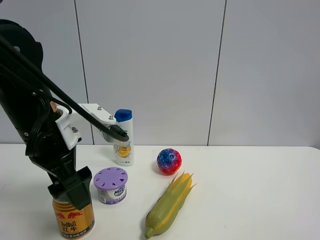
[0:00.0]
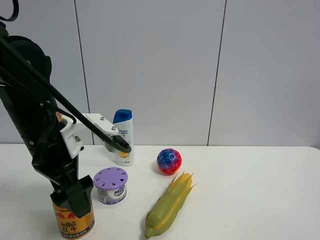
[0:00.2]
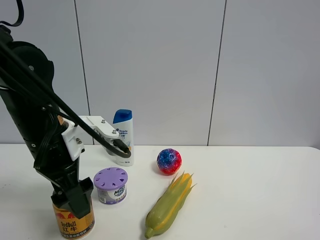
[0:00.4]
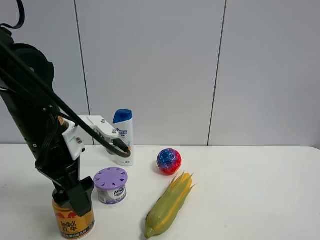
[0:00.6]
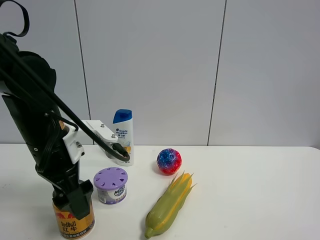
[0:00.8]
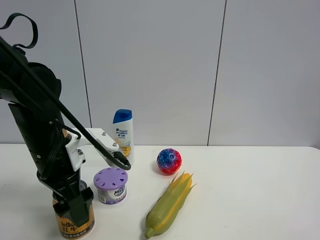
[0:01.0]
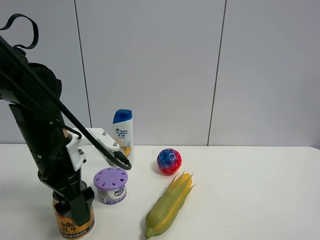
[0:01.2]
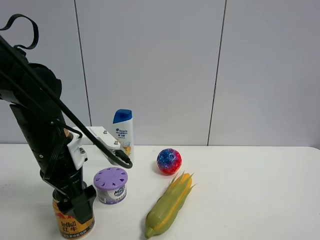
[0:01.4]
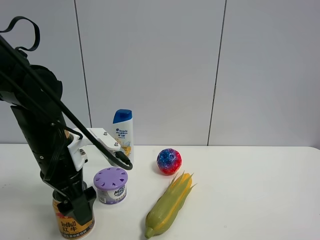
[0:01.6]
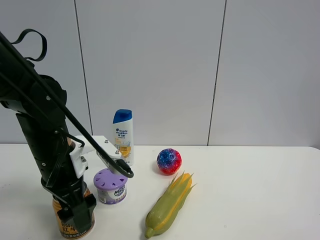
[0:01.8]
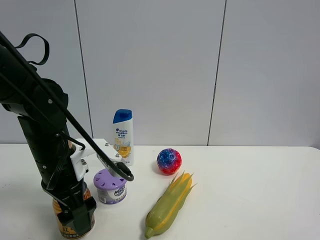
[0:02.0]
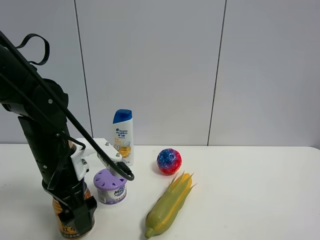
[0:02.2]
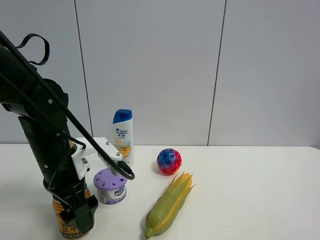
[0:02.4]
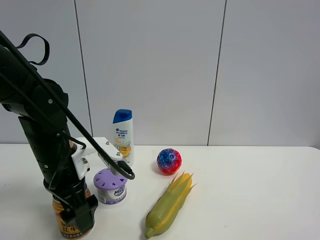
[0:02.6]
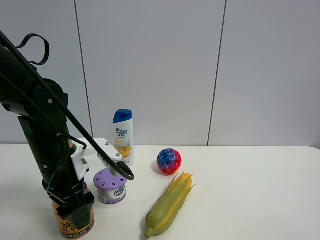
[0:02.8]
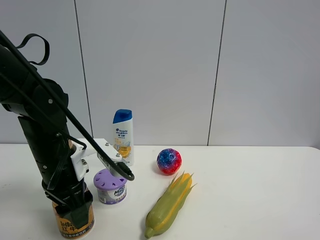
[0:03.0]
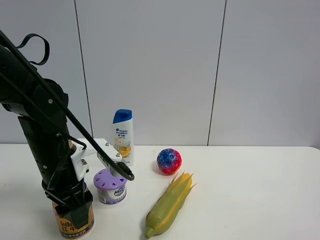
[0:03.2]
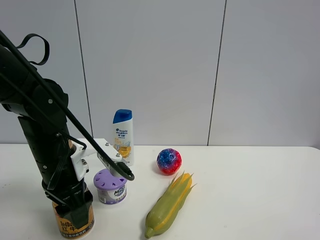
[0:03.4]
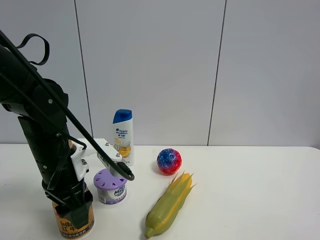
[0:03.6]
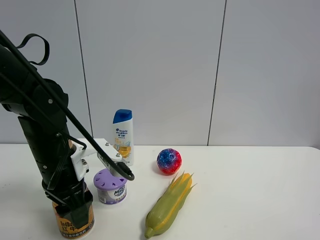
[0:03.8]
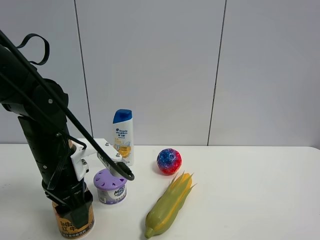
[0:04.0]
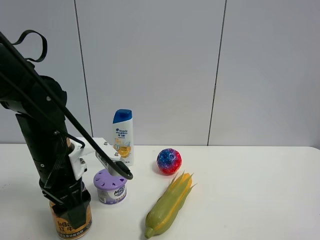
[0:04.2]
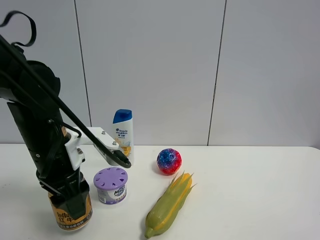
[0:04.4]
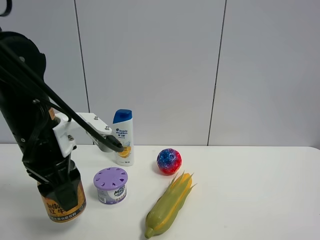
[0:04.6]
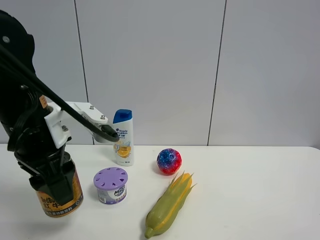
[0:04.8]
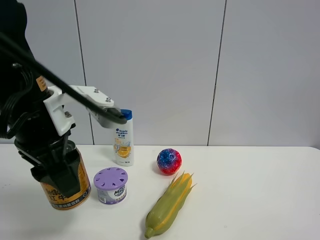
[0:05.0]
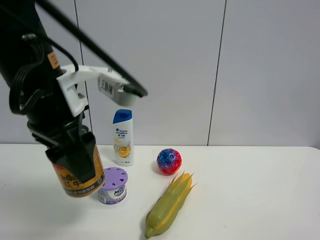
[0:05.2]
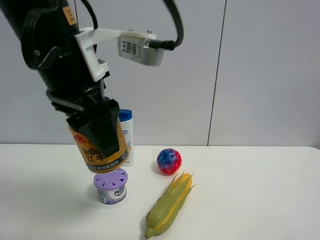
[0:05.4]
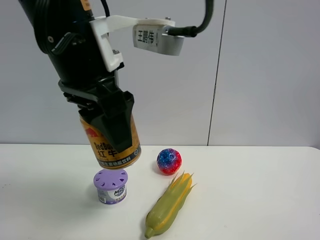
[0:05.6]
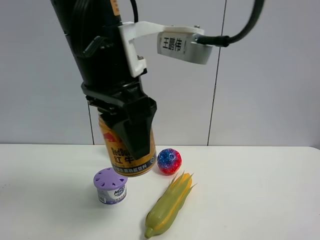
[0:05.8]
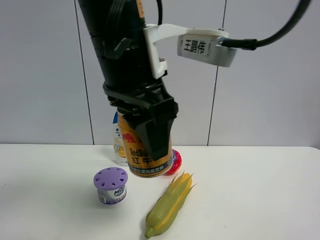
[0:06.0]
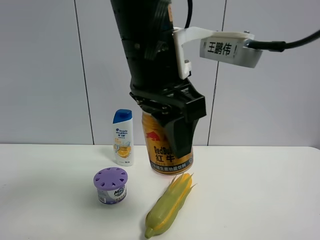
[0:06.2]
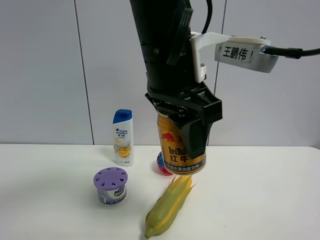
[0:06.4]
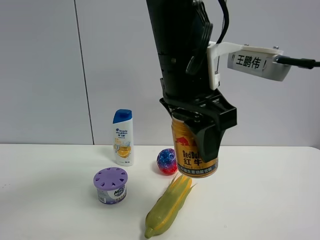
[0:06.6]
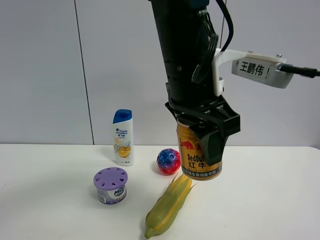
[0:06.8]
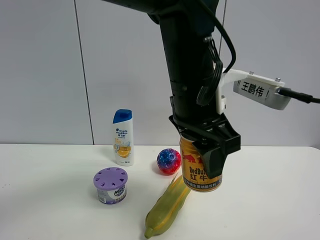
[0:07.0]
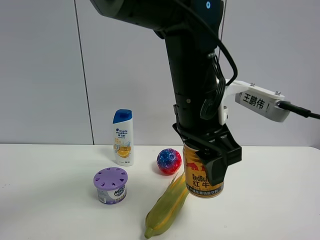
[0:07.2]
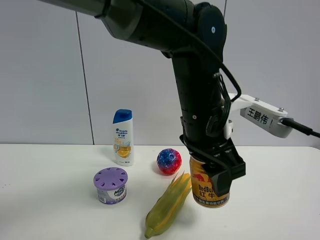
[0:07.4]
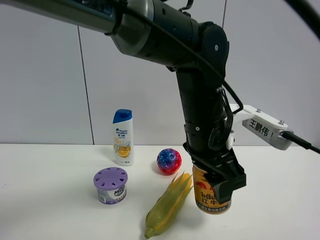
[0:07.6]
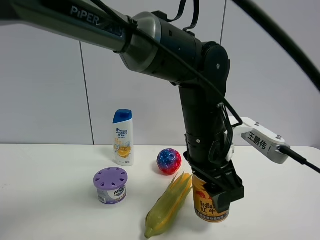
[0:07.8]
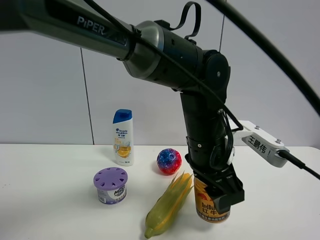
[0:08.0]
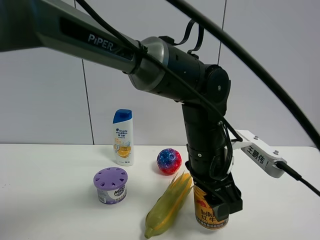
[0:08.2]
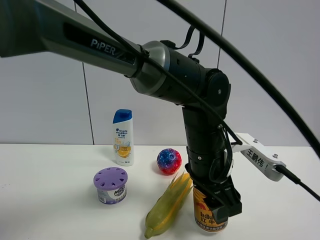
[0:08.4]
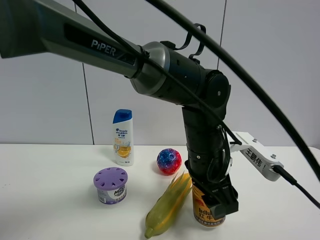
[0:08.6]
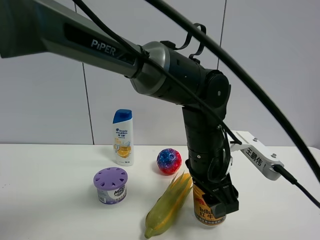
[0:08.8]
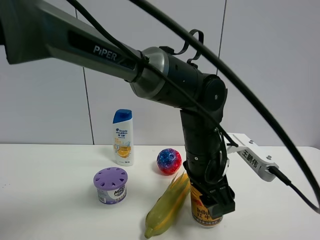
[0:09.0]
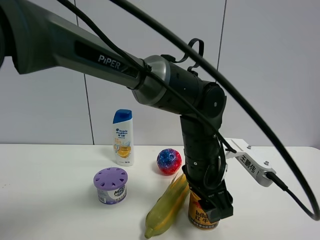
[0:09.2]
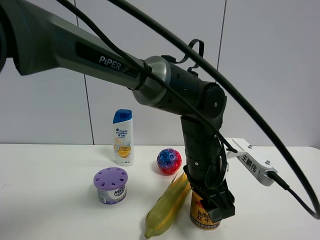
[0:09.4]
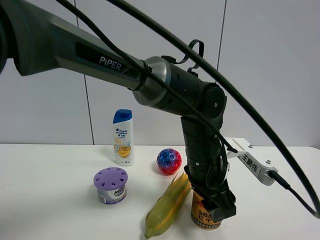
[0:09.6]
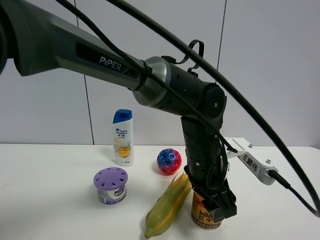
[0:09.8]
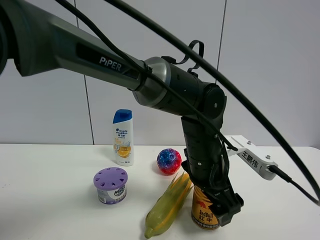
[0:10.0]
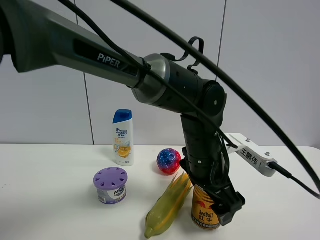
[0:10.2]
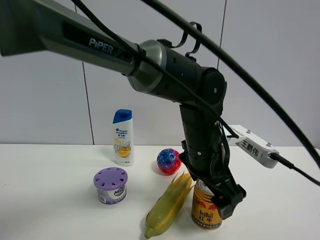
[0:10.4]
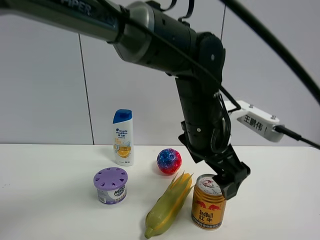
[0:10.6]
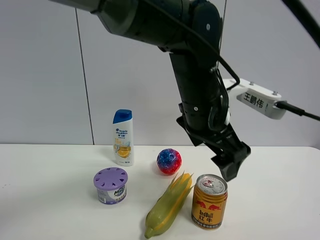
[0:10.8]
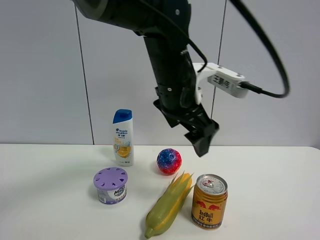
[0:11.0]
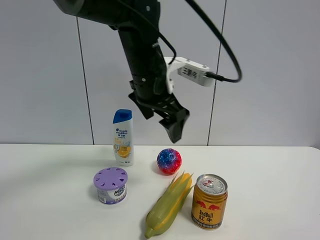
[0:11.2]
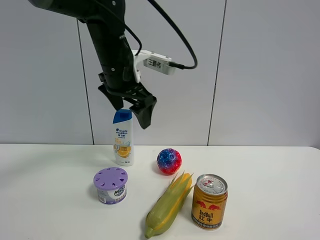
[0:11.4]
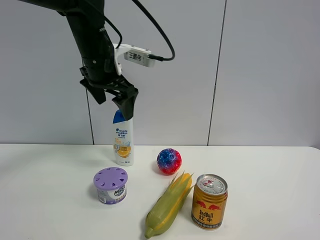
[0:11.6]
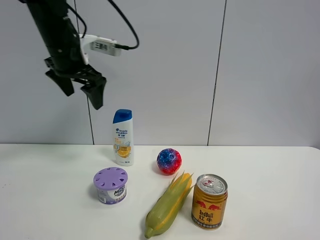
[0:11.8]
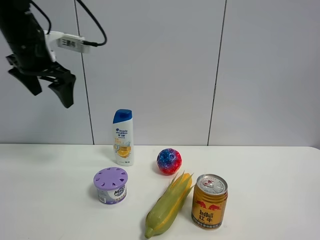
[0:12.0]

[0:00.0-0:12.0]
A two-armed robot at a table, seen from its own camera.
Task of the whole recording: the gripper move the object.
Step, 0.0 to 2.8 s: Grasp the red bull with the left gripper.
Step, 3.0 to 10.2 s: Place the red bull on the table with the left gripper.
0.0 to 1.6 s: The left gripper ends up roughly 5 cm from where it was.
1.6 to 3.0 s: The left gripper closes its fingers.
3.0 to 4.4 s: The grippers stay close to where they were, moving slightly.
4.4 to 6.0 s: The left gripper goes roughly 20 cm upward and to the right.
6.0 to 7.6 s: The left gripper is displaced downward, to the right and forward by about 15 cm.
7.6 to 9.0 s: The left gripper shifts approximately 5 cm downward.
9.0 to 10.4 s: The left gripper opens.
10.4 to 12.0 s: The left gripper shifts approximately 35 cm to the left and upward.

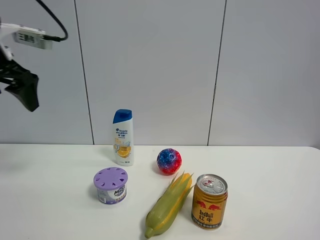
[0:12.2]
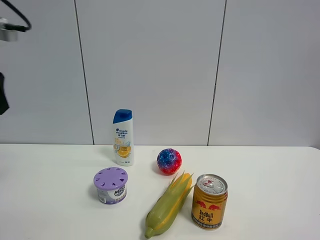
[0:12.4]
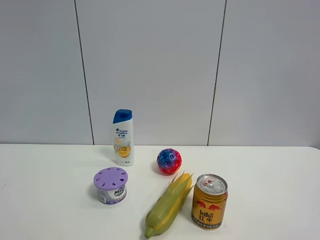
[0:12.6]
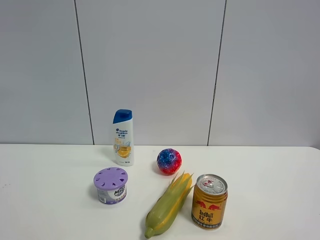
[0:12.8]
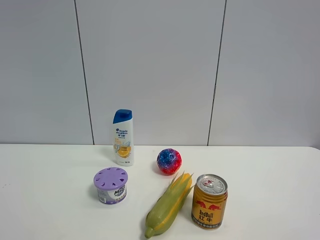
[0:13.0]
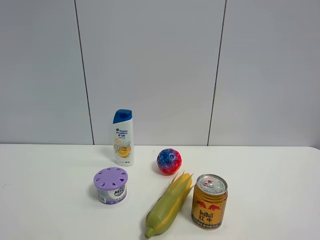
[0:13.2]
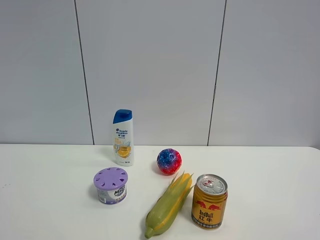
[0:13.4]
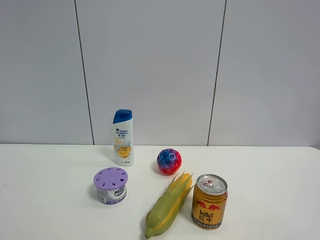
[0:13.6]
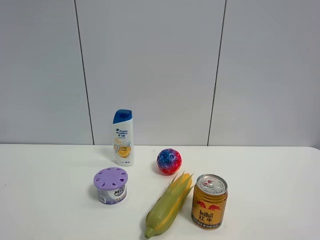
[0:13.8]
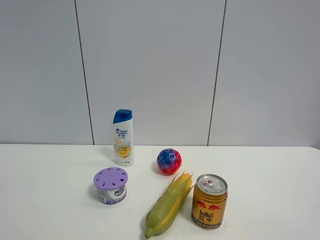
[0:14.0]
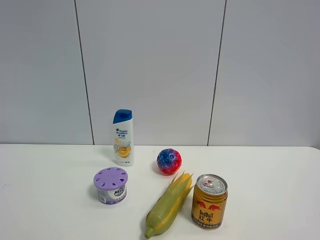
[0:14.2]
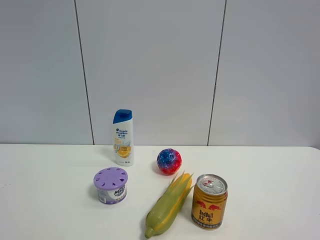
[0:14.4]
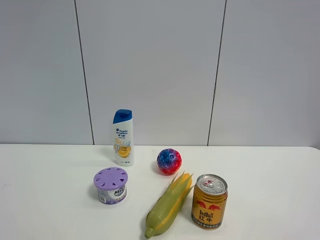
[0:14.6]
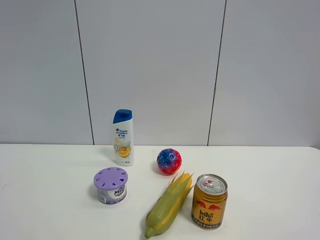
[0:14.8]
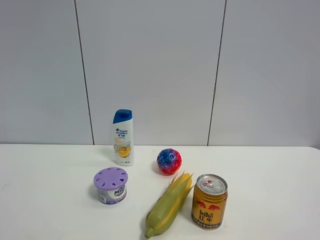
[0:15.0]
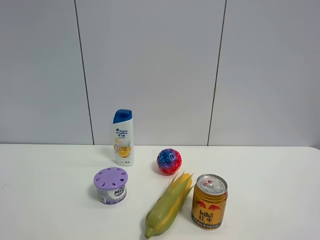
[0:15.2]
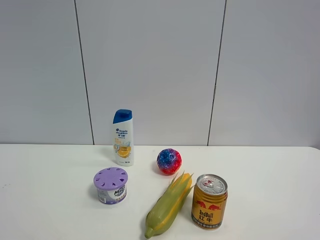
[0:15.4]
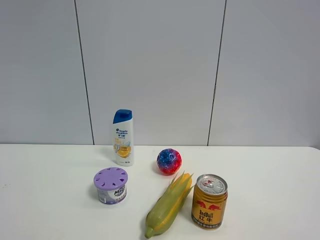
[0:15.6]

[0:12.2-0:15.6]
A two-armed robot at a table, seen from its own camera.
Task of the whole recording: the gripper move the object.
12.2 to 13.8 s: The left gripper goes about 35 cm backward.

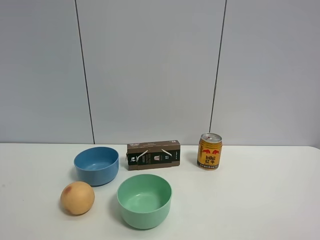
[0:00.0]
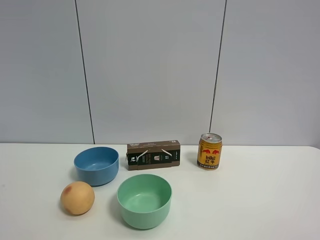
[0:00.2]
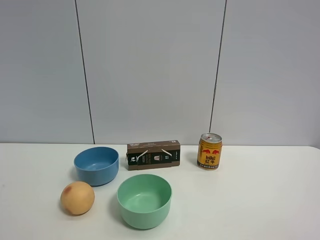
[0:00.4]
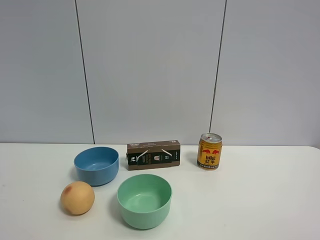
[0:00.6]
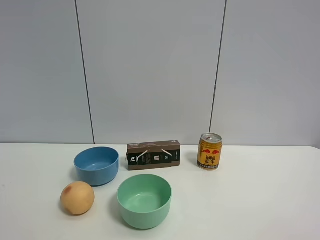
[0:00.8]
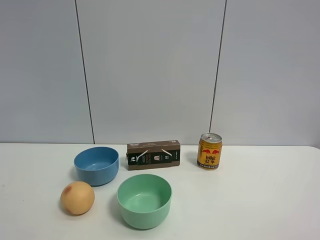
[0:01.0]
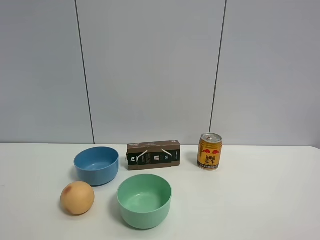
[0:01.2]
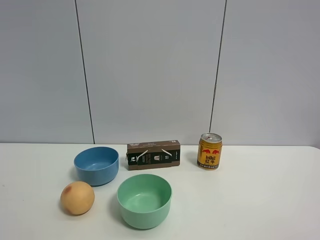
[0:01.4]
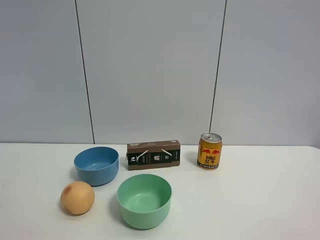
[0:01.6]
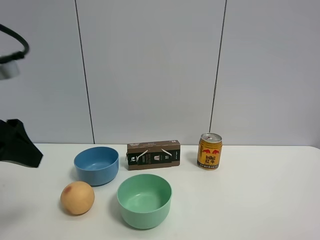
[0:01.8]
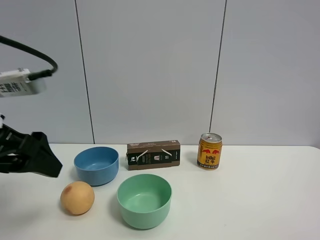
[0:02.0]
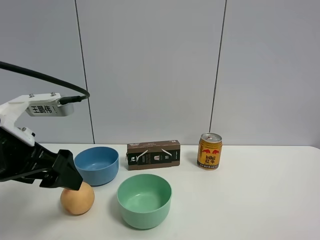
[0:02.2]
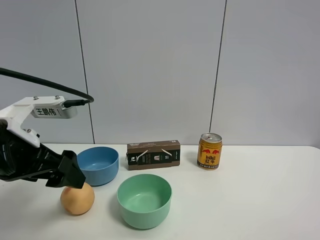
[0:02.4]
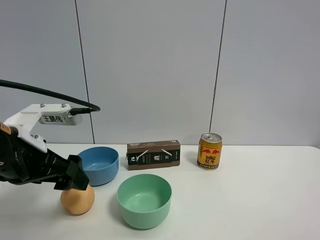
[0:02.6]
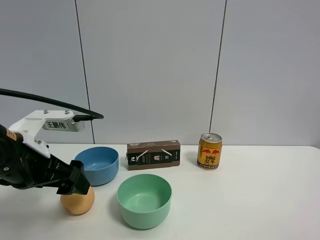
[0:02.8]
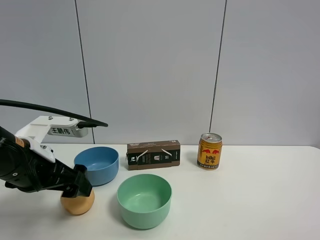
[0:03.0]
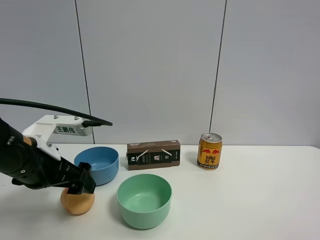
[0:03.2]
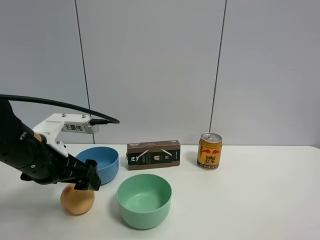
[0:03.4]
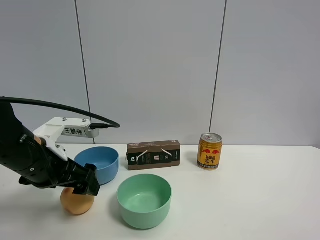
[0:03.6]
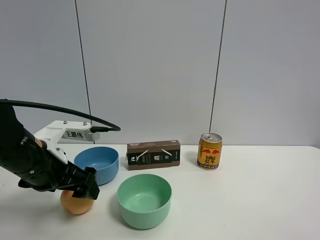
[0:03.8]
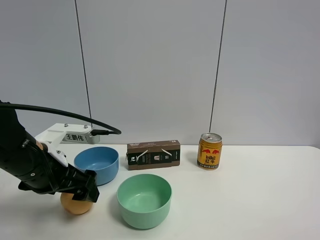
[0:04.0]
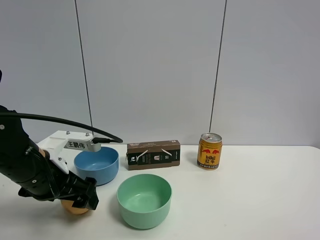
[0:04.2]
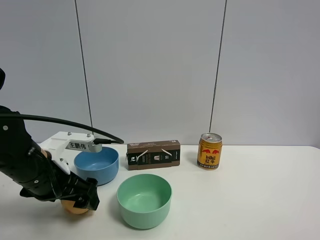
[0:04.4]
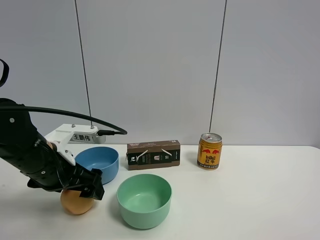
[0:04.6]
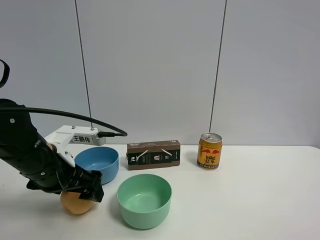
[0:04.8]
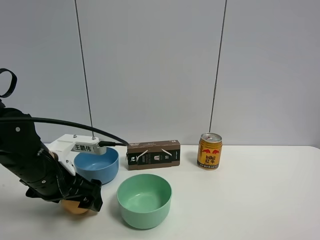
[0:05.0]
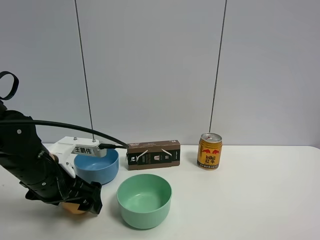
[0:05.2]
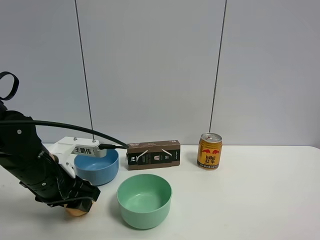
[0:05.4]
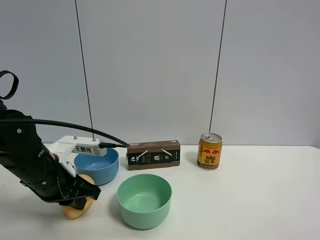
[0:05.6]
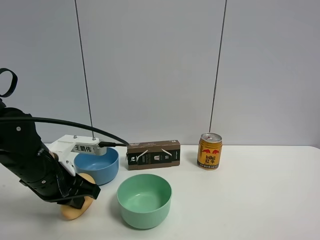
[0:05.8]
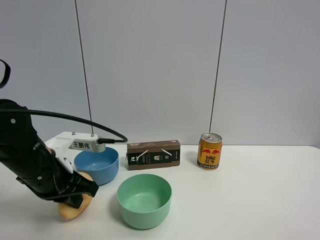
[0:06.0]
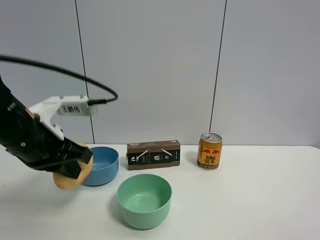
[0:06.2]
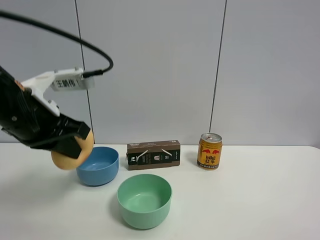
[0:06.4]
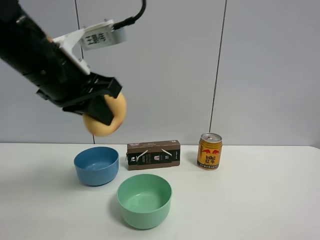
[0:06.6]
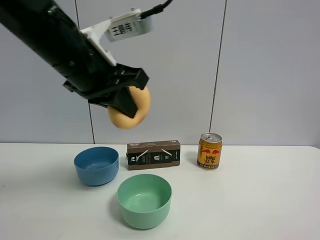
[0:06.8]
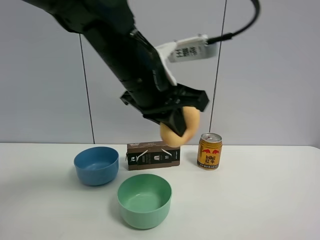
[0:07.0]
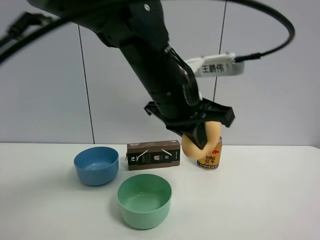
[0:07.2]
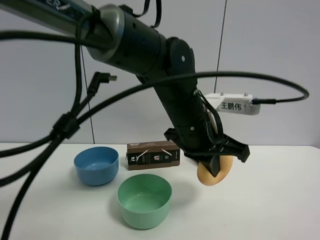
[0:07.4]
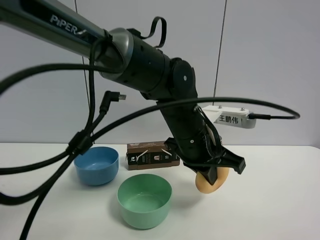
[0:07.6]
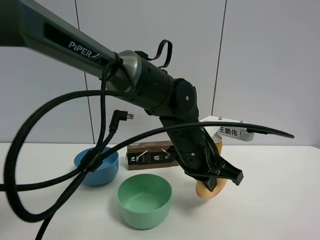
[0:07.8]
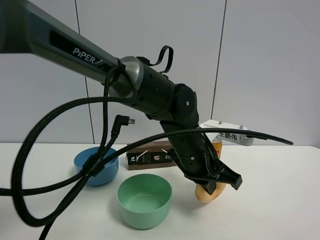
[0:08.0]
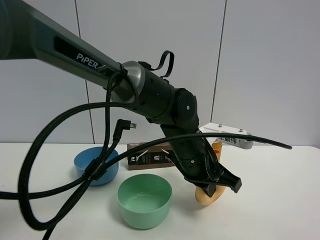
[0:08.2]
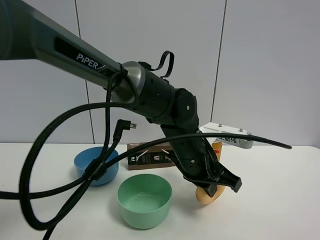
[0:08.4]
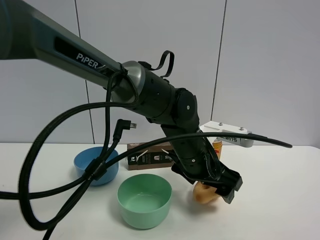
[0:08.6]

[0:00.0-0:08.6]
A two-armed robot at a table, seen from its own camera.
Task of the whole recording: the gripper move the object.
Step, 0.0 to 5.4 s: Grasp the egg yolk pastry with the left gripper.
1.4 to 2.8 s: The left gripper shifts about 20 cm downward, to the right and forward.
2.8 to 4.4 s: The left gripper ends up about 5 cm from where it was.
4.4 to 5.8 s: The left gripper closes its fingers.
5.8 to 7.2 s: The left gripper moves to the right and upward, roughly 25 cm.
7.2 to 8.6 s: The left gripper is displaced downward by about 10 cm, and opens up.
